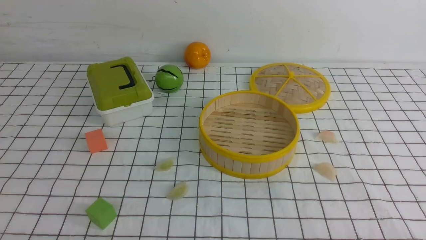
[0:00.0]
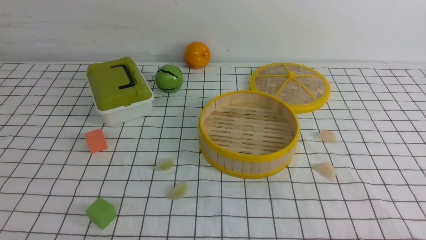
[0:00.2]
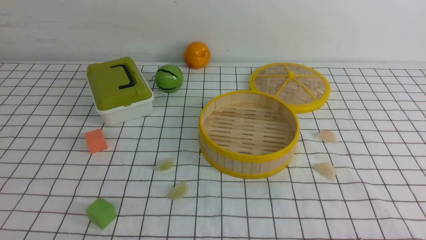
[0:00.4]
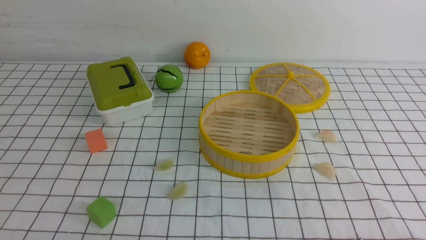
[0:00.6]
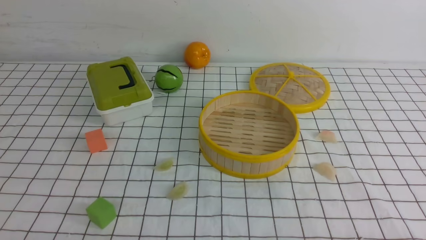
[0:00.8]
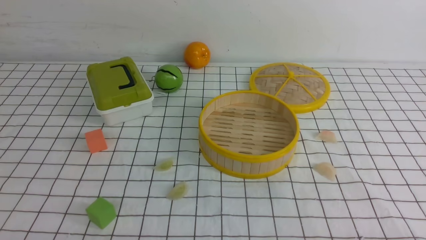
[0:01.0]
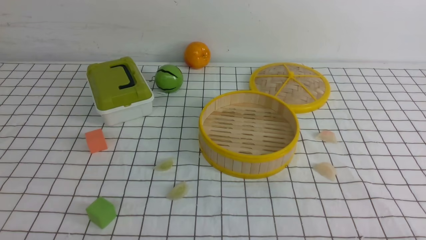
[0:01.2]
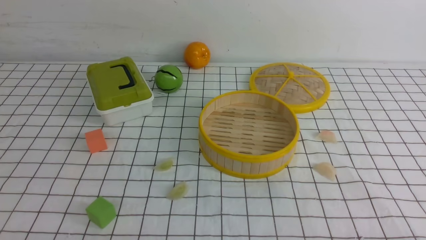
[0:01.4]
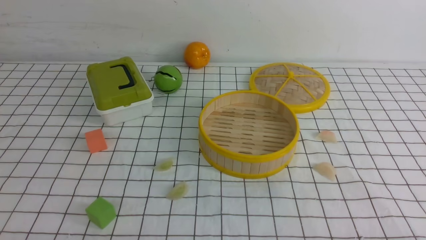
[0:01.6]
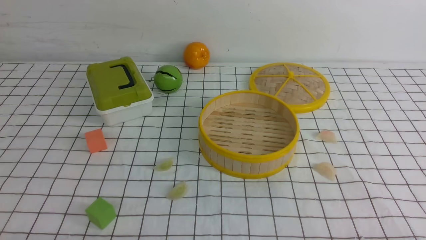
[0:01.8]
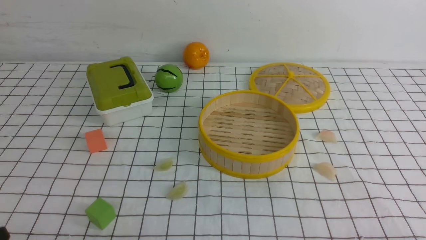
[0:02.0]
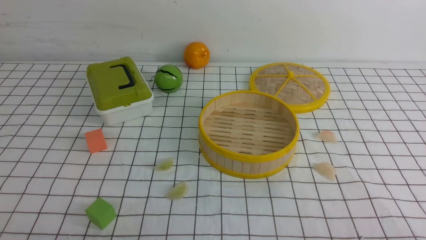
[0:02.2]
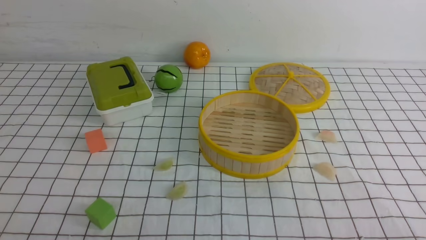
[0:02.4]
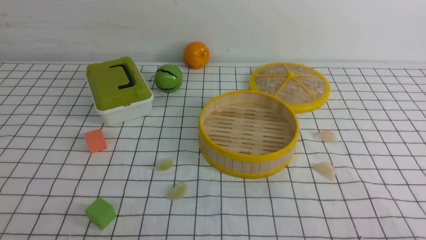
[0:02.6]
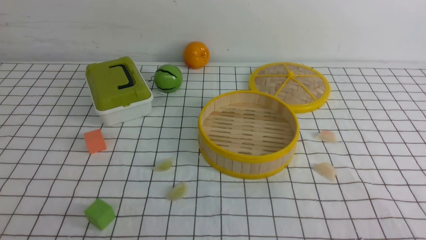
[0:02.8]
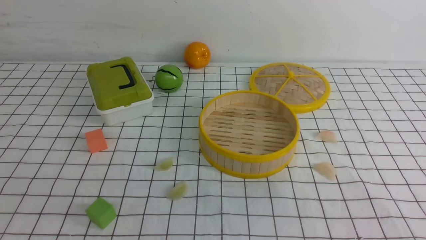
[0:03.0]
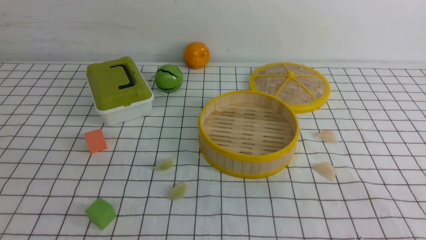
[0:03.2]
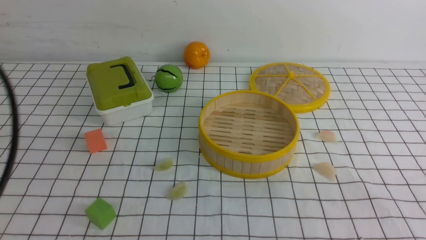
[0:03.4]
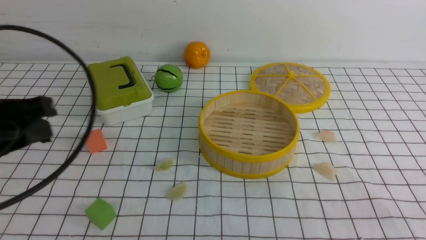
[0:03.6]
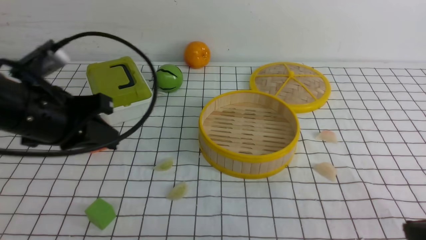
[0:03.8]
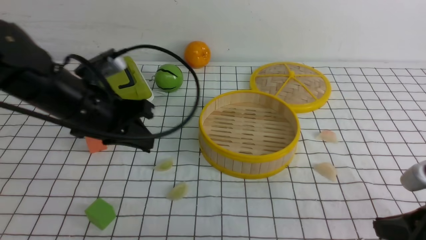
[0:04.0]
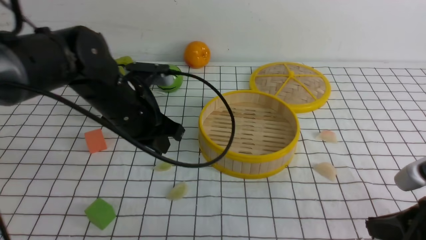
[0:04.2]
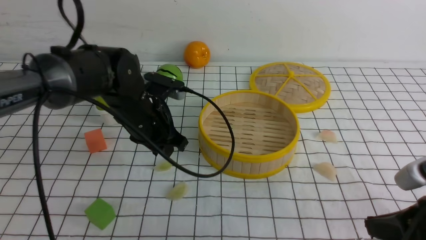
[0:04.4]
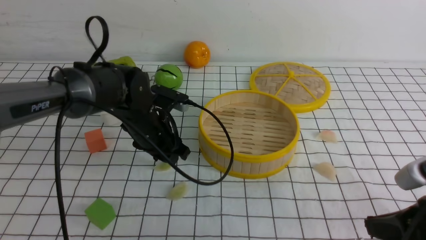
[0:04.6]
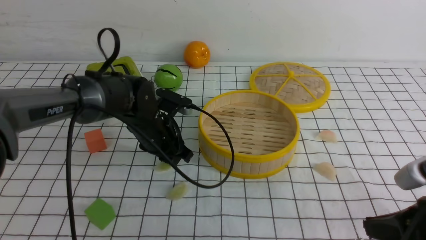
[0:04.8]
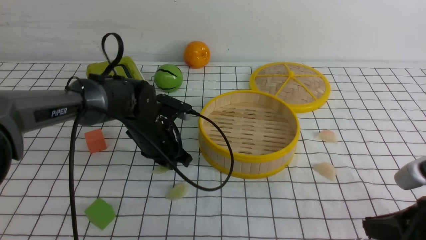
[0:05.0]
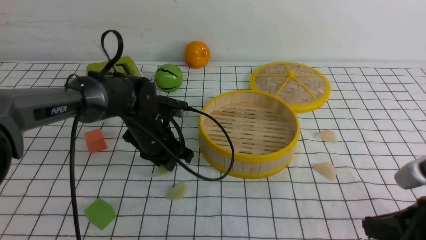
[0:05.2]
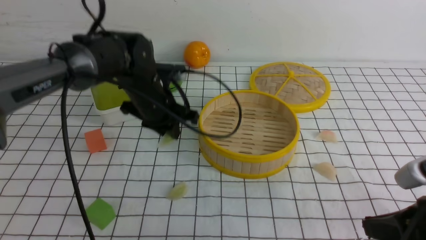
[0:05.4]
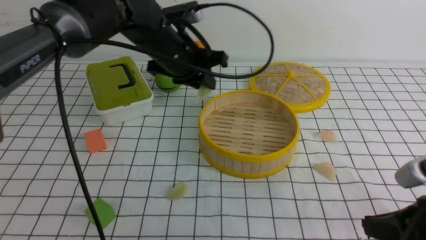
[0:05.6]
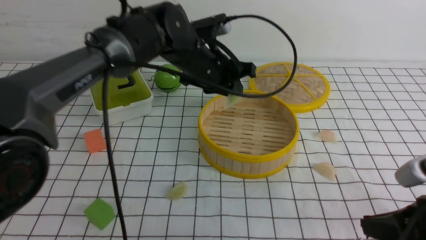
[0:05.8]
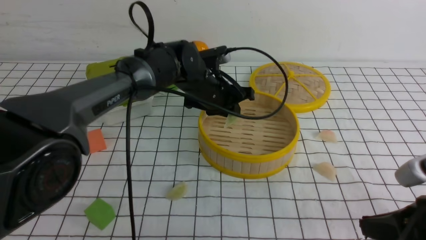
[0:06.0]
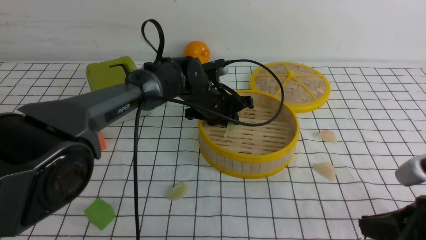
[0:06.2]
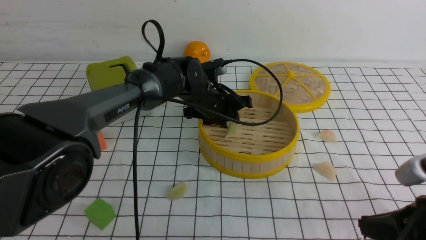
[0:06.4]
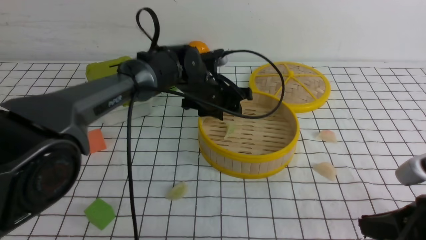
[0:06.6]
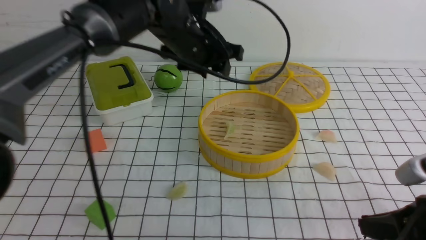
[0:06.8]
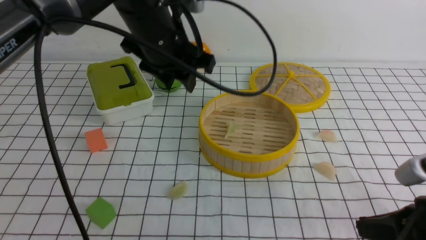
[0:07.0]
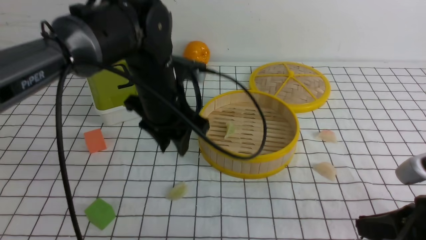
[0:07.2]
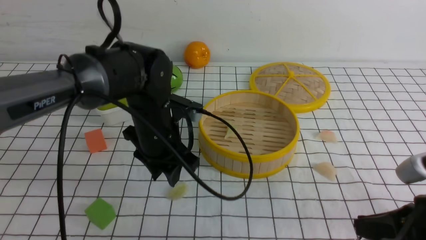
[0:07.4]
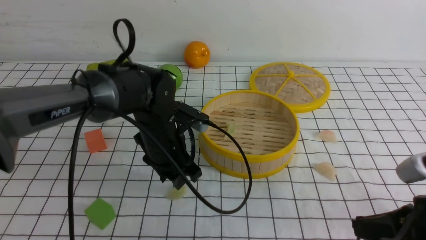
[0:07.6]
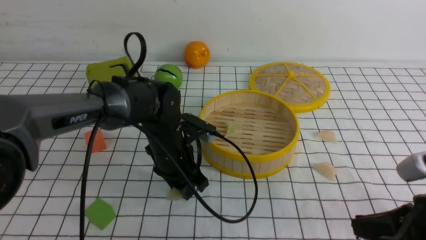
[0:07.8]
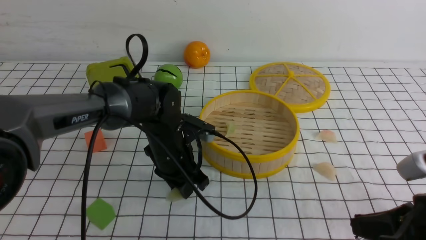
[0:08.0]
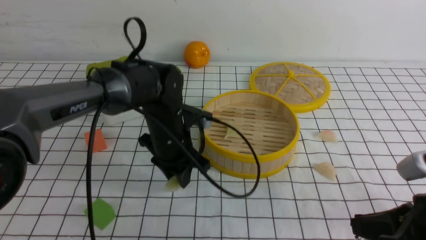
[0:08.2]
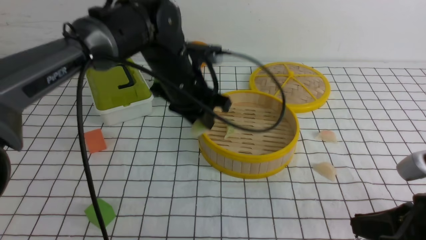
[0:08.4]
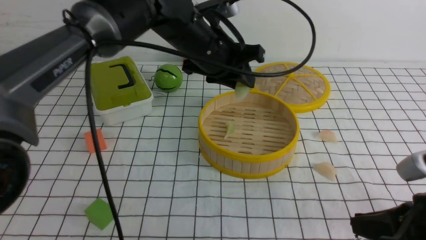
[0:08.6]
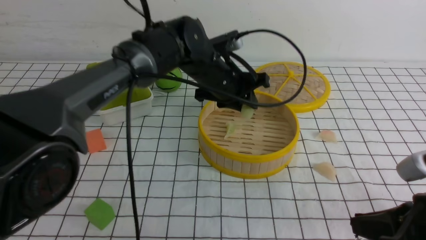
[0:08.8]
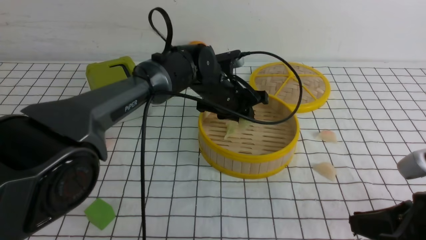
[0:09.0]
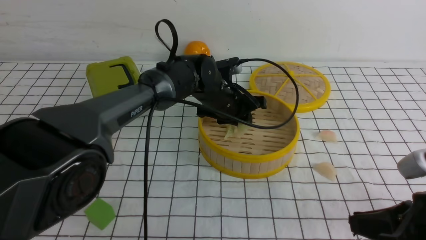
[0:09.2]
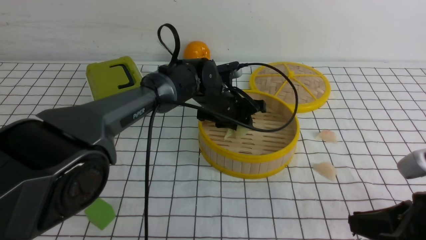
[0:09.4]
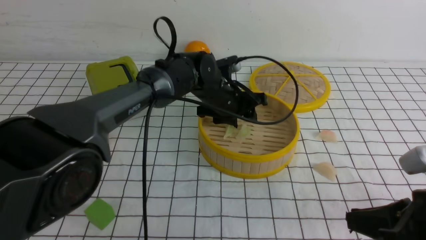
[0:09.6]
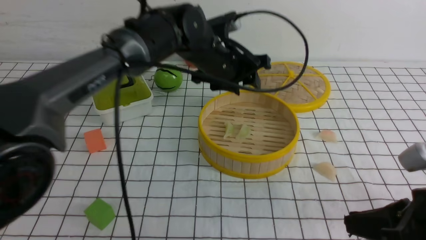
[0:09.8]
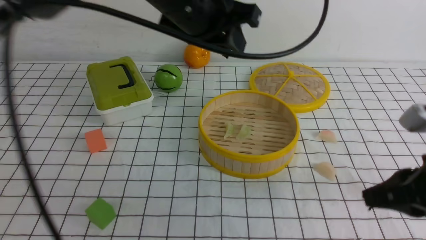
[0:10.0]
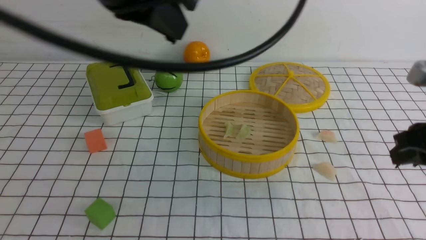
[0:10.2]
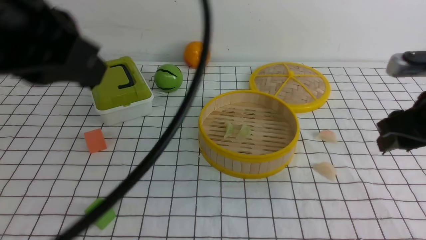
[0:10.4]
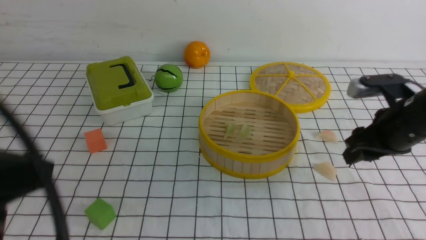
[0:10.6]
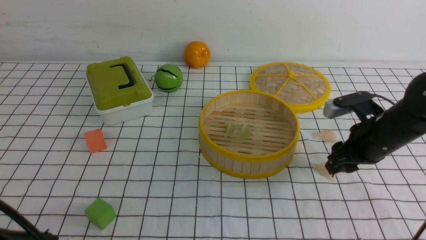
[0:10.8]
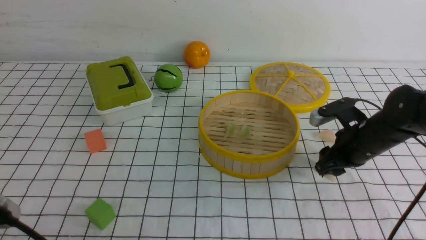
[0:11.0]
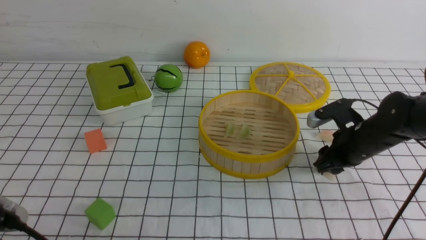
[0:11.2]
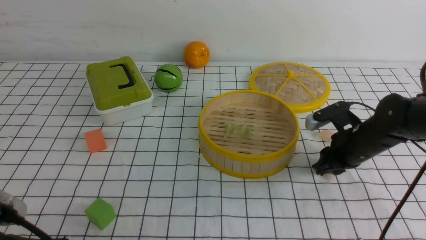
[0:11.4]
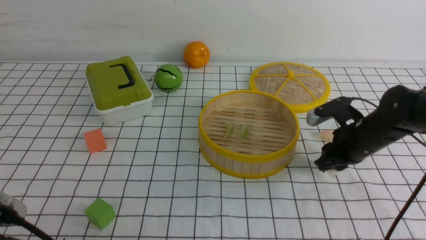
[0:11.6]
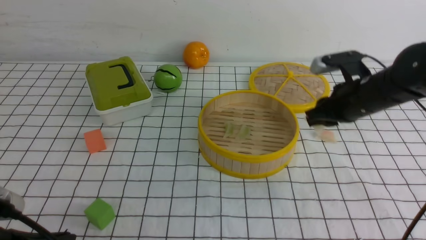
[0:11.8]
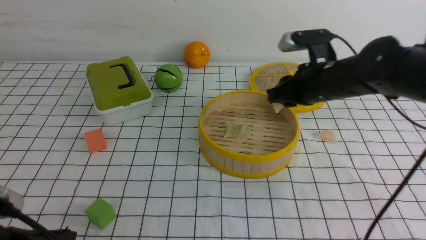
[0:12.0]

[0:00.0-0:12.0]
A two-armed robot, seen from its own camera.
Task of the whole recording: put the dumplings into the steamer on the table with the white tablecloth.
Step, 0.0 to 5.4 s: use the left arm to grab a dumpling.
Step, 5.6 to 6.8 s: use the left arm to put the dumpling into the steamer.
Step, 7.0 to 8.4 s: use the left arm to grab a dumpling.
Step, 8.6 to 9.8 s: use the left arm to put the dumpling into the steamer.
Step, 10.0 to 11.6 s: use the right arm to grab a dumpling.
0.0 to 1.6 s: The two grippers keep their place.
1.6 to 3.0 s: The left gripper moves upward, roughly 15 cm, and closes its fingers.
3.0 to 4.4 s: The left gripper goes roughly 35 cm forward and to the right, and opens its fingers; the right gripper travels forward and to the left by about 15 cm.
4.4 to 6.0 s: The left gripper swings up and down, some 10 cm each way, with 2 reversals.
6.0 to 7.6 s: The left gripper goes approximately 10 cm backward and to the left, moves about 10 cm upward and comes back, and opens.
7.6 to 9.0 s: The left gripper heads forward and to the right, covering approximately 10 cm, and moves roughly 10 cm upward and comes back.
9.0 to 10.4 s: The left gripper heads backward, upward and to the left, covering about 40 cm, and closes its fingers, while the right gripper goes roughly 15 cm forward, and opens its fingers.
10.4 to 12.0 s: The left gripper shifts roughly 20 cm downward. The right gripper goes approximately 15 cm forward, to the left and downward, and closes.

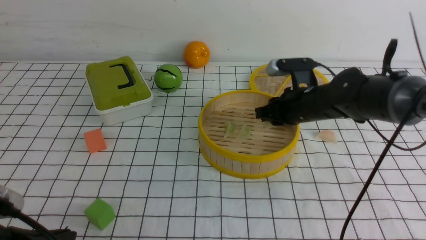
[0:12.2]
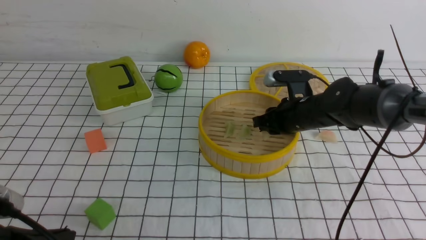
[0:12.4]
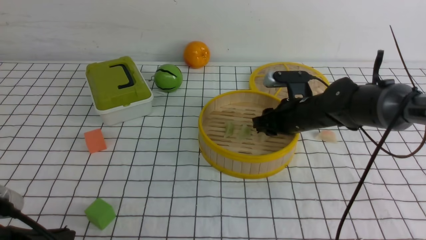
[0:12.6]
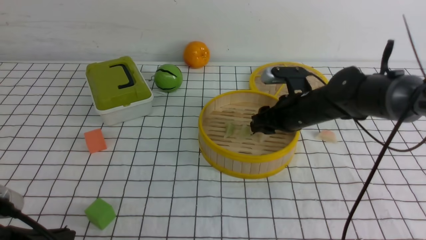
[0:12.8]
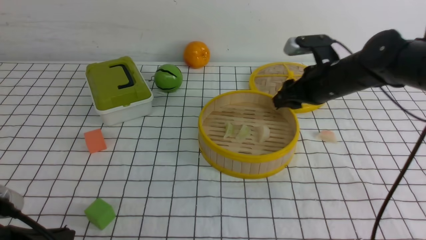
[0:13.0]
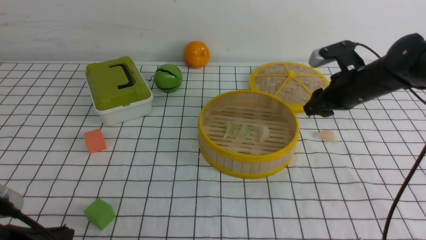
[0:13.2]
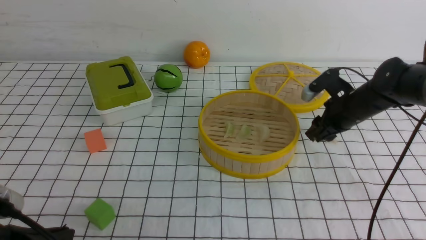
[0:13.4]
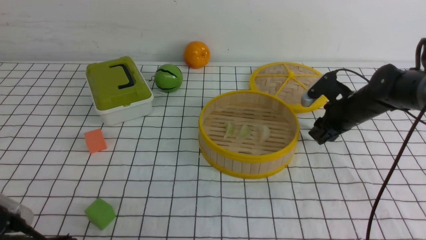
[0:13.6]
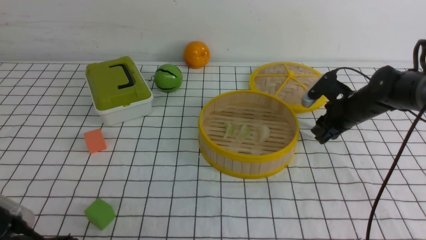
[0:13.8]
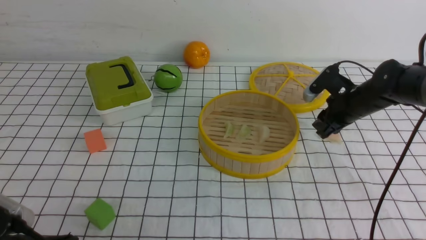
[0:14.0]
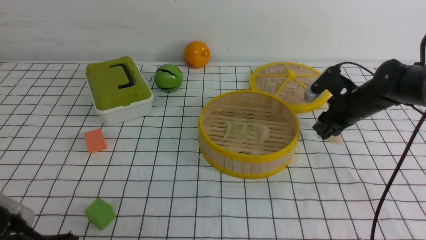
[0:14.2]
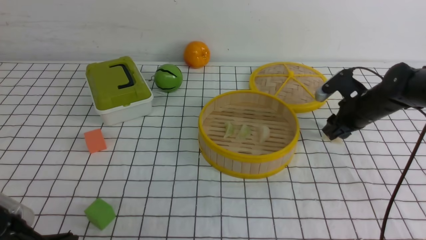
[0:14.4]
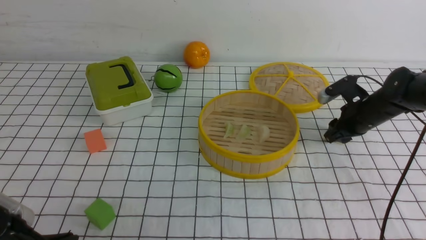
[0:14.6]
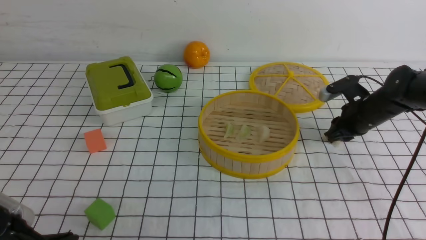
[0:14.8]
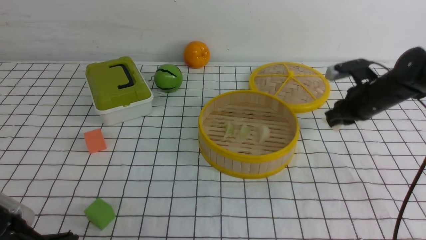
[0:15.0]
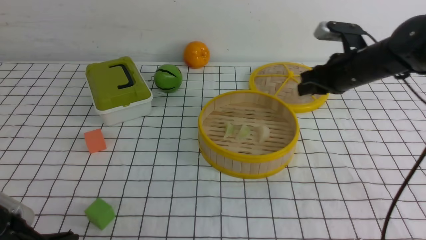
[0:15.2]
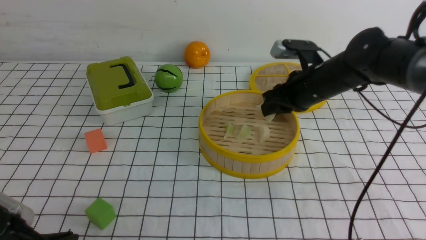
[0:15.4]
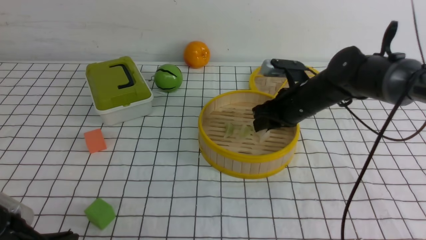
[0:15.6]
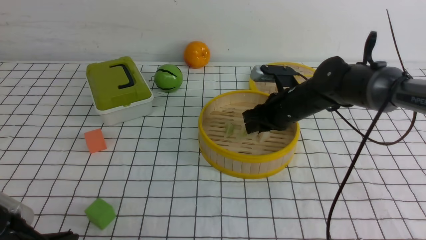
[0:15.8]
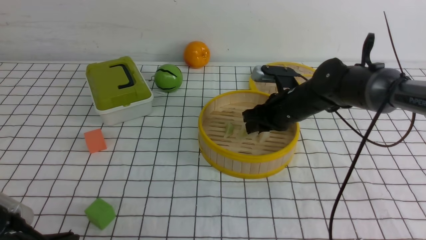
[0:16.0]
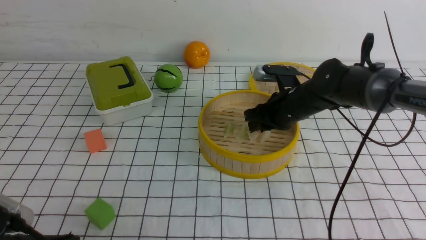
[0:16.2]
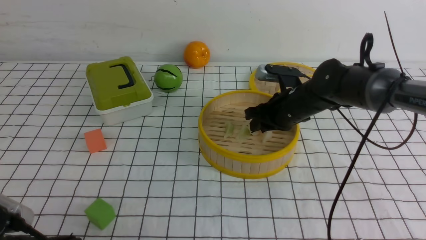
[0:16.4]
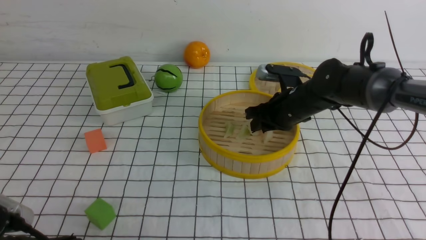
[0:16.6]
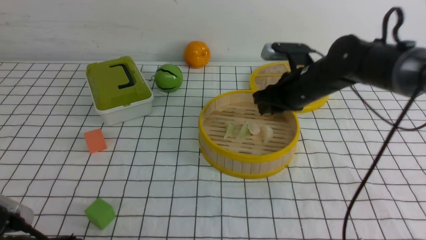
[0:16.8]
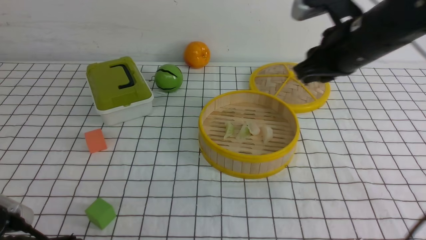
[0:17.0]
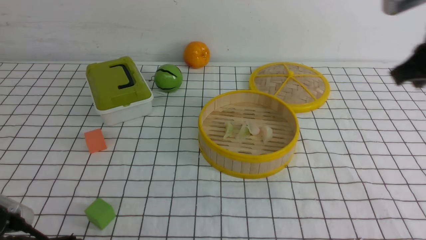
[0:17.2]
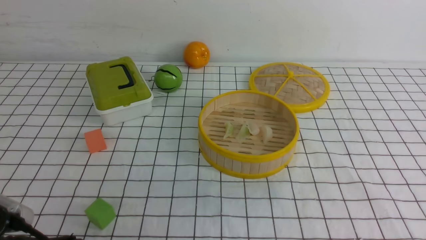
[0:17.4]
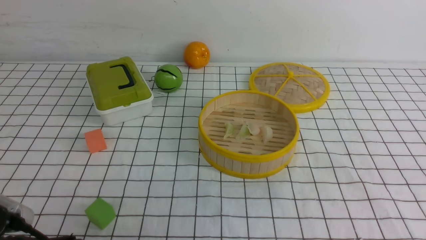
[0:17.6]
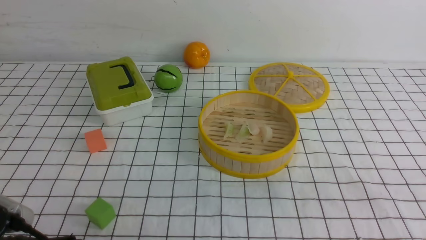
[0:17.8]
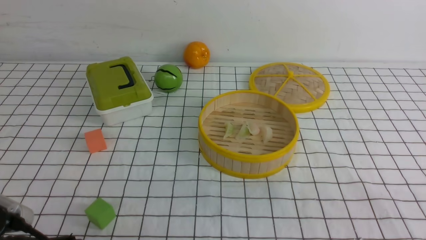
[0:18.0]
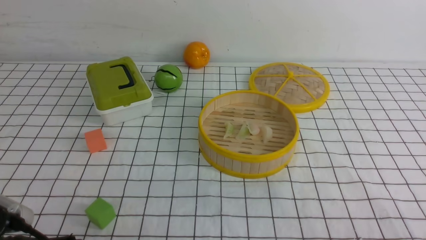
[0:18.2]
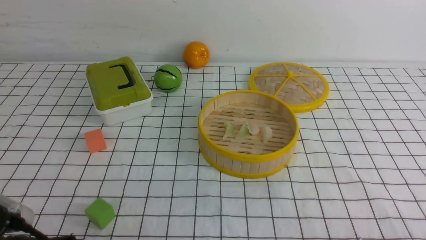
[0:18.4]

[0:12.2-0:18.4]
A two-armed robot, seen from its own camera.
Task of the whole recording: put the dumplings into the steamer on the table with the white tablecloth.
Step, 12.2 to 13.2 s: use the right arm to put the dumpling into the steamer.
Step, 13.4 to 15.0 s: use the right arm to grab a dumpling.
Step, 15.2 to 17.0 s: use the right arm to put the dumpling into the steamer.
12.2 to 13.8 s: The right gripper travels to the right by some 10 cm.
13.8 to 15.4 s: The right gripper moves to the left and upward, some 10 cm.
15.4 to 16.8 s: The right gripper changes place by approximately 5 cm.
16.8 to 18.4 s: The right gripper goes approximately 35 cm backward, and closes its fingers.
